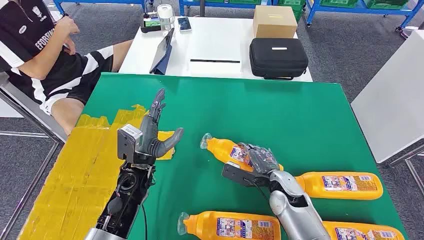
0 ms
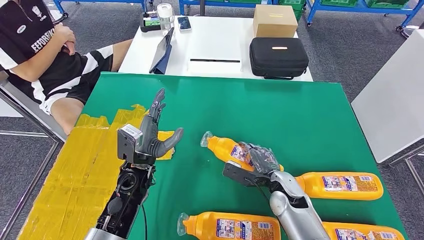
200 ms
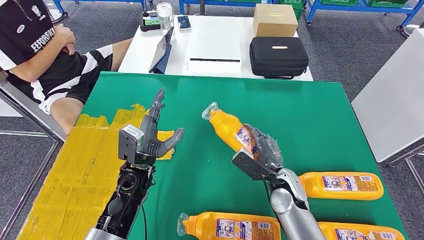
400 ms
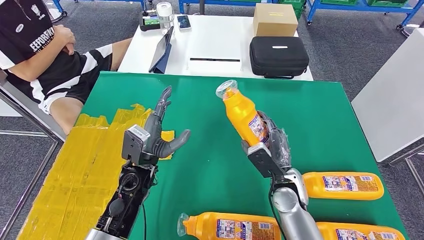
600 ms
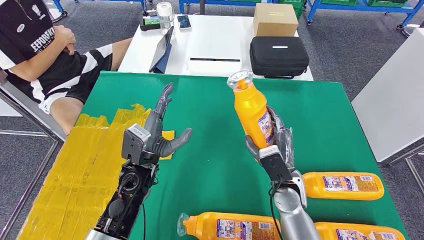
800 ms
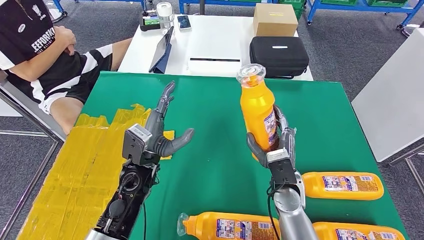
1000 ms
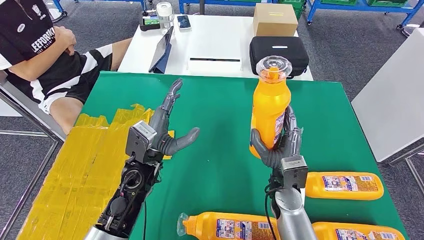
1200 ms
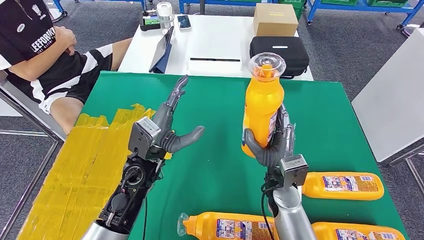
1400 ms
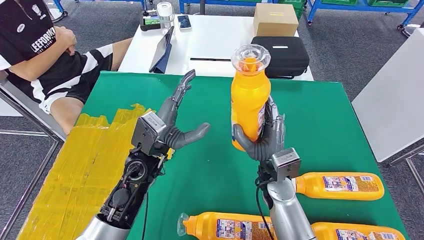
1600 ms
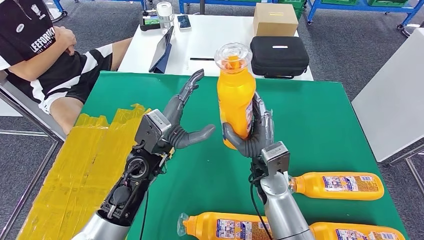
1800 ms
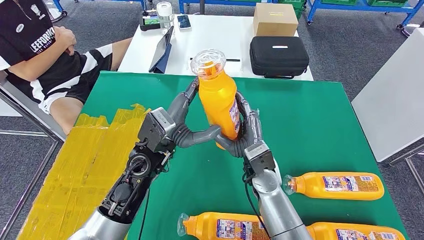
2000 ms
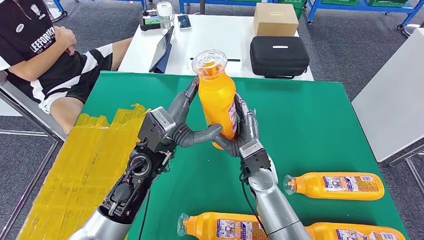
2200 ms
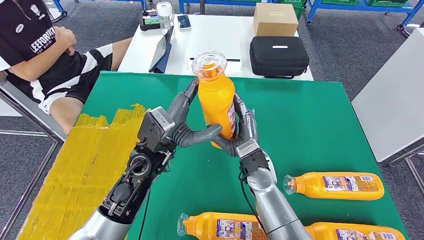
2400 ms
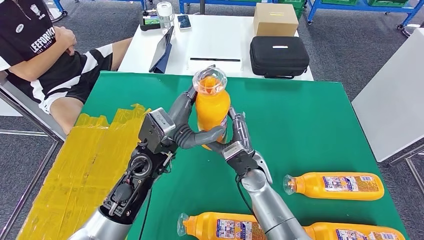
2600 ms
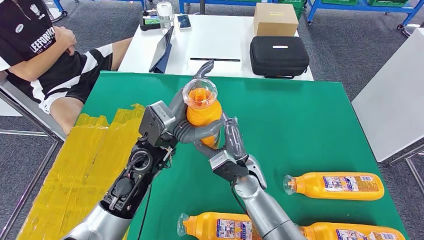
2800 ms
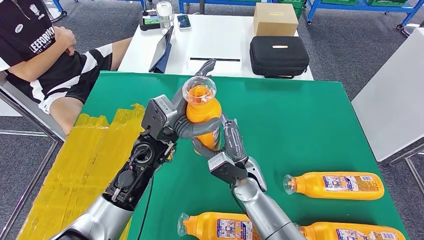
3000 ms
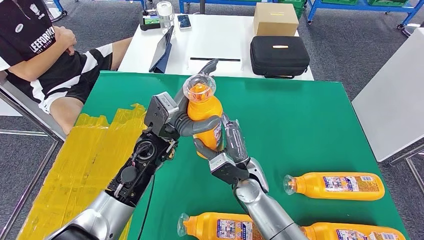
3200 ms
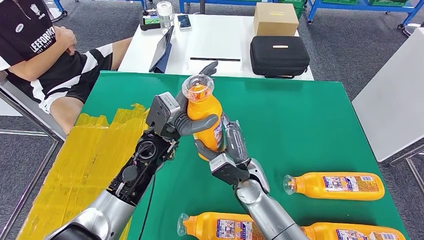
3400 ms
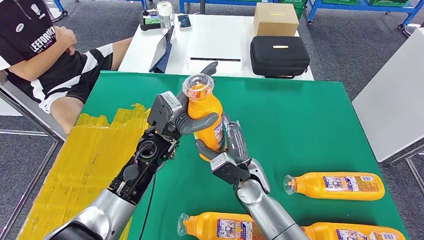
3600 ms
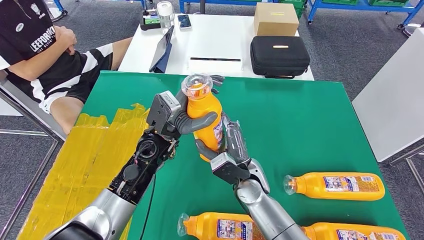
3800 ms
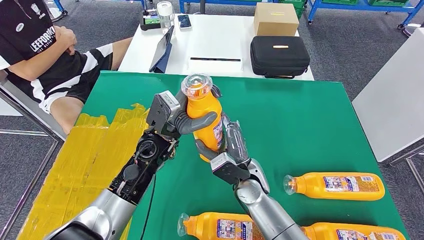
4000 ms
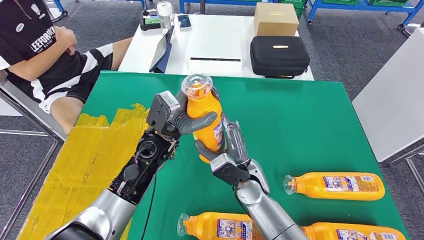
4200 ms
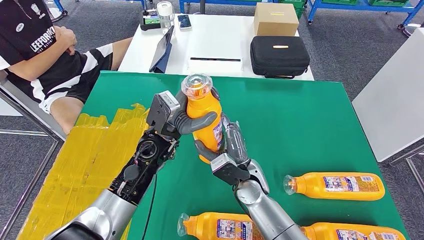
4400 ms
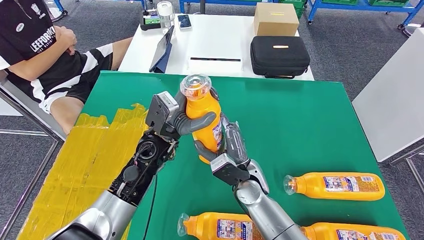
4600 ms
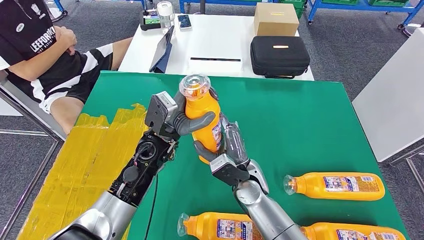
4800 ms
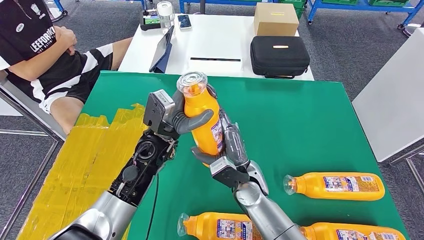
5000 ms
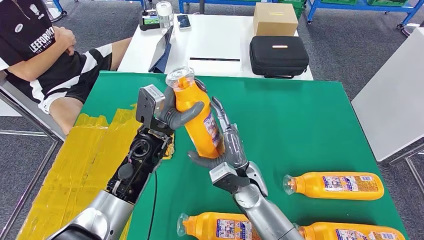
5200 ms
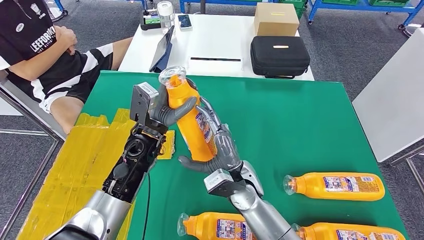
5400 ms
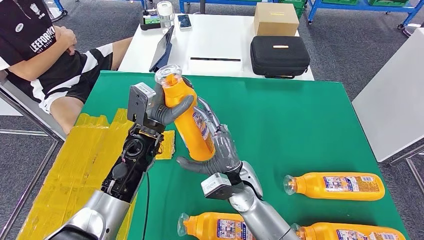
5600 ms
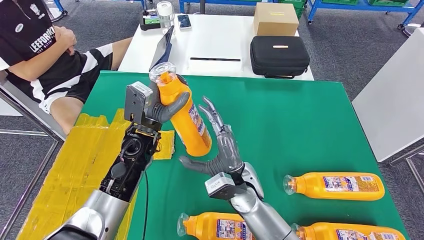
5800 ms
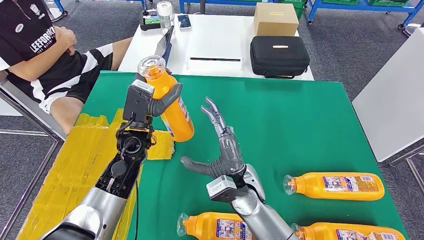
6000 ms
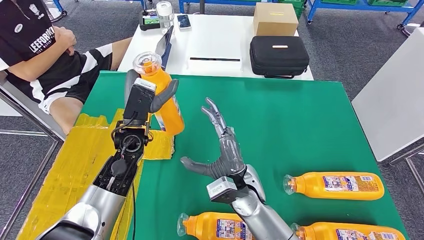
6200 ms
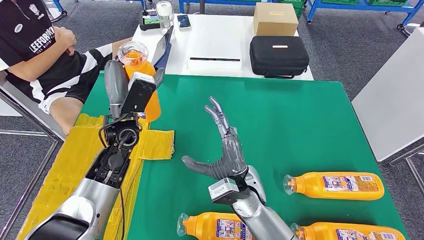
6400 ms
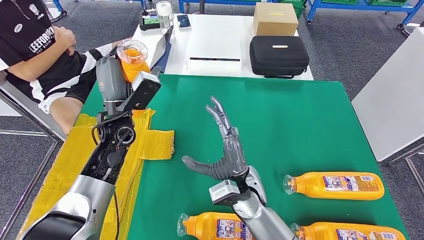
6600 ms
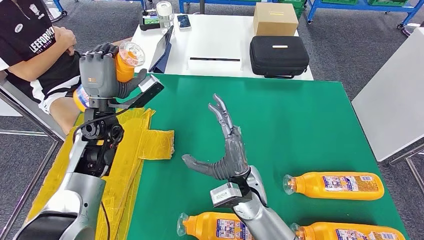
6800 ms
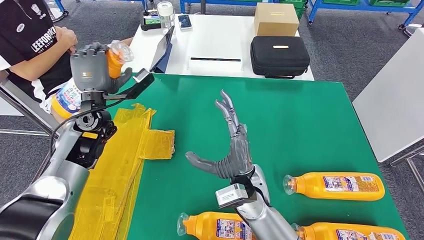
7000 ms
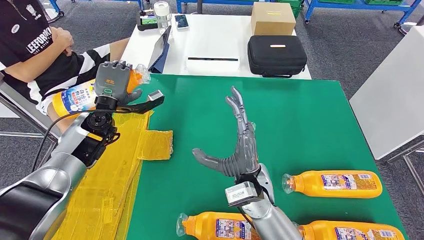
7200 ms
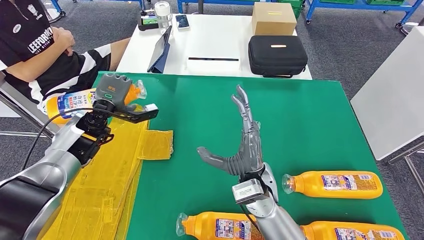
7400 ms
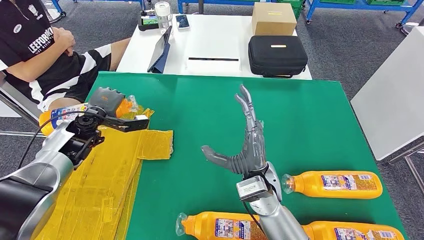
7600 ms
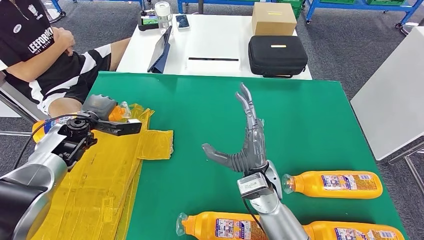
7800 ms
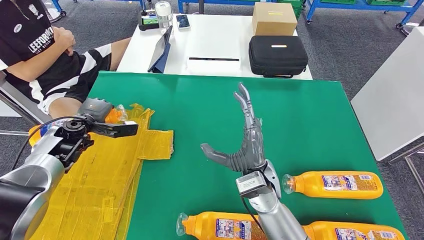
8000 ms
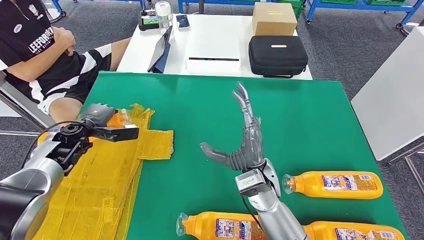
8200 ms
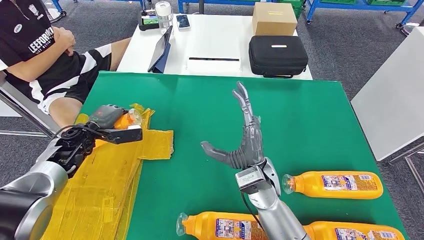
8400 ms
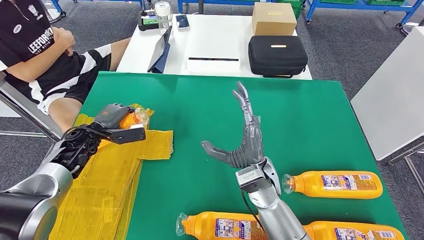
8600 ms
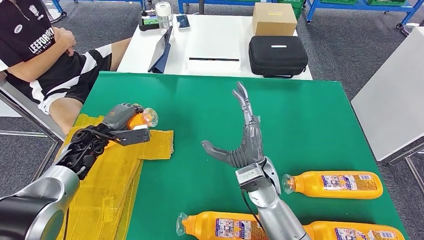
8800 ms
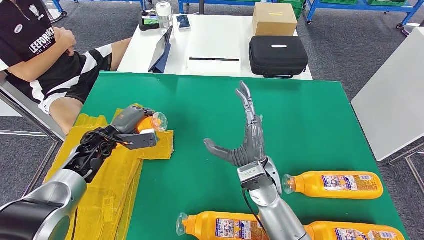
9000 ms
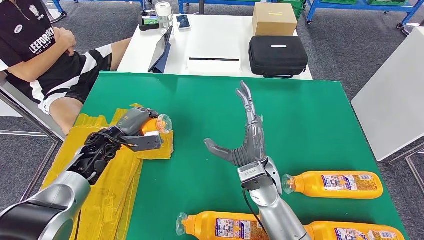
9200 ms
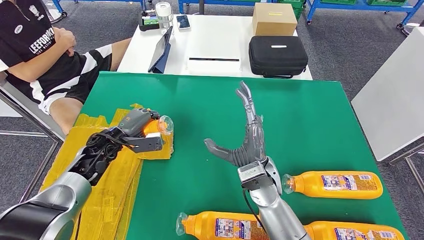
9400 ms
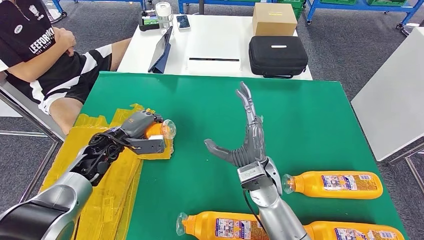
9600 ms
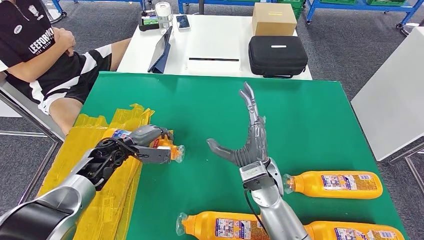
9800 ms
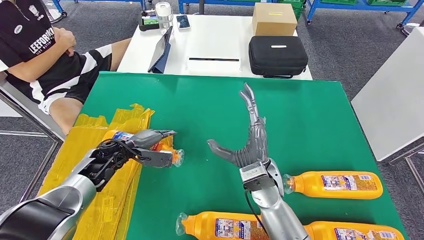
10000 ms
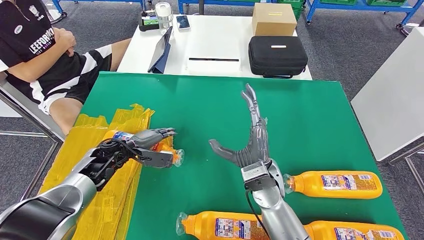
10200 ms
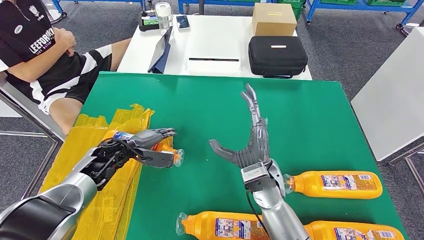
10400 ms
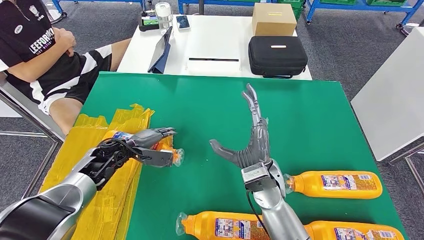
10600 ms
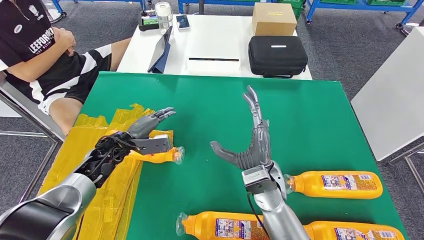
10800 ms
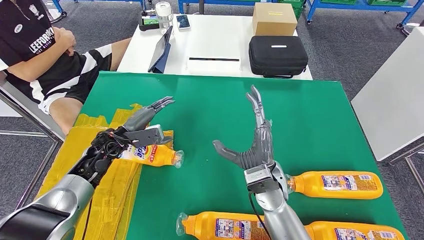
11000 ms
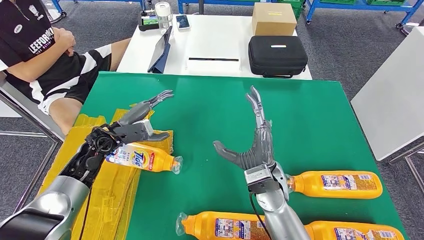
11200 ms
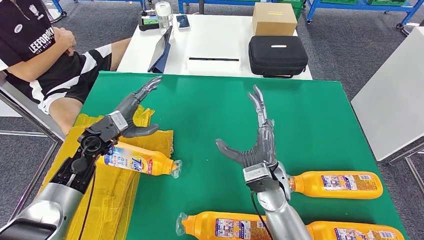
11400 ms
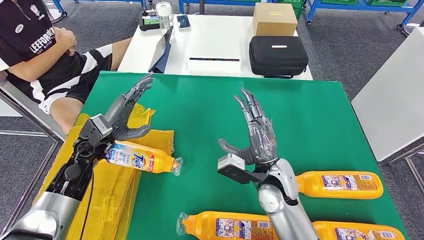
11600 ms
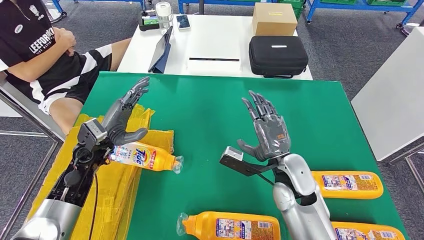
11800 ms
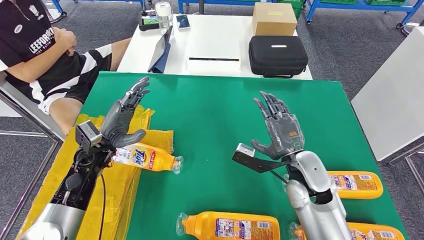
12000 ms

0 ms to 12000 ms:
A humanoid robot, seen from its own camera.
Step, 0 ms to 4400 ms: Take the fast-moving consumer goods bottle from the table.
Step, 4600 ms to 10200 ms: Flip the fast-moving consumer goods bottle to the front side.
1600 ms to 3000 ms: The right hand is displaced to the left by roughly 5 cm.
3000 ms to 4400 ms: The hands move only a little.
4400 ms to 6000 ms: The left hand travels to the left by roughly 5 cm.
7600 ms to 9000 ms: The left hand shifts by some 5 cm.
10400 ms to 12000 ms: The right hand heads to the right, covering approximately 10 cm; the left hand moves upward, roughly 5 cm.

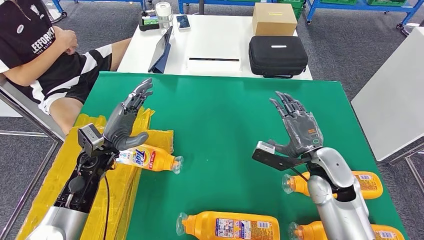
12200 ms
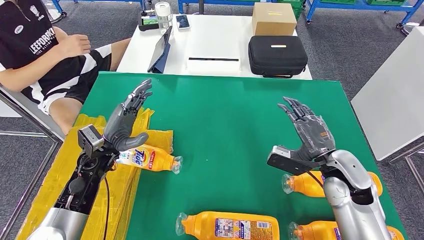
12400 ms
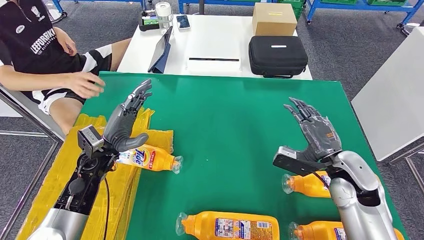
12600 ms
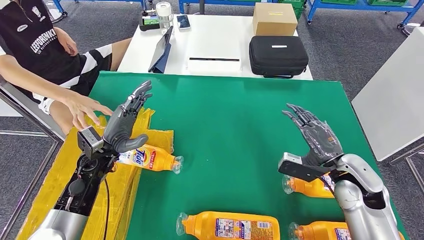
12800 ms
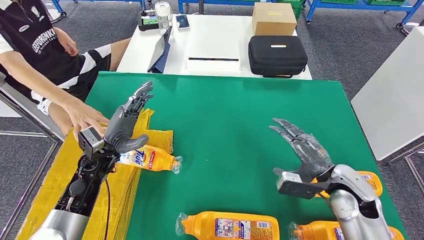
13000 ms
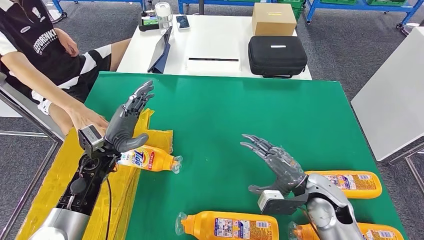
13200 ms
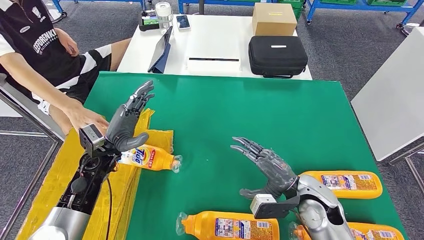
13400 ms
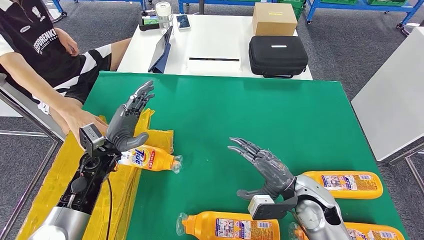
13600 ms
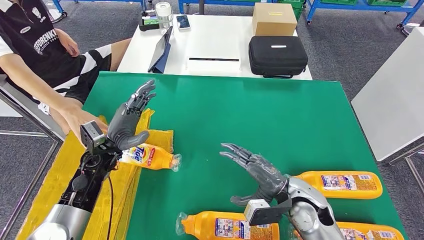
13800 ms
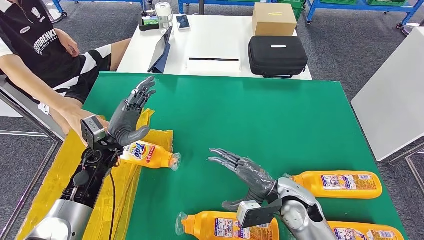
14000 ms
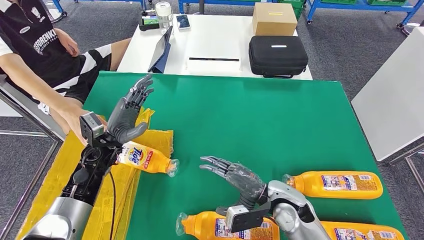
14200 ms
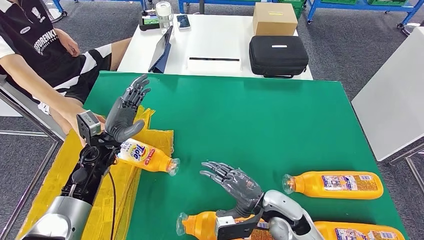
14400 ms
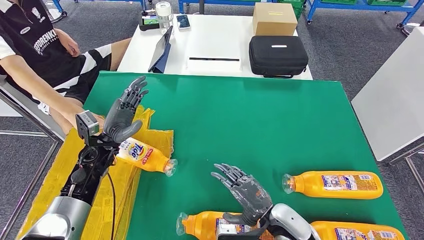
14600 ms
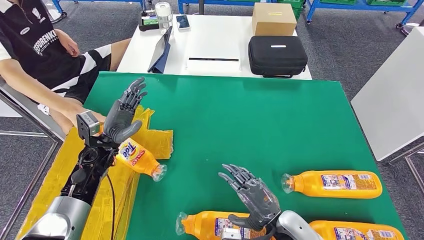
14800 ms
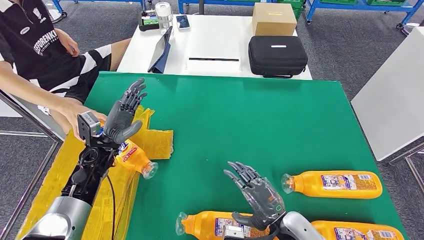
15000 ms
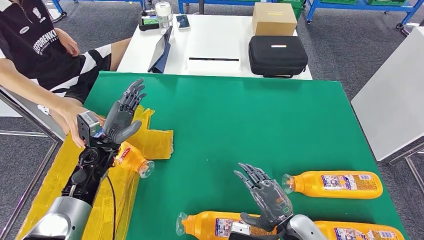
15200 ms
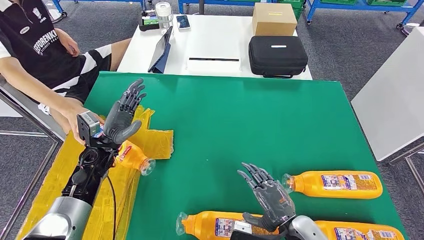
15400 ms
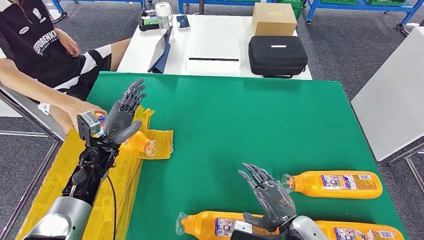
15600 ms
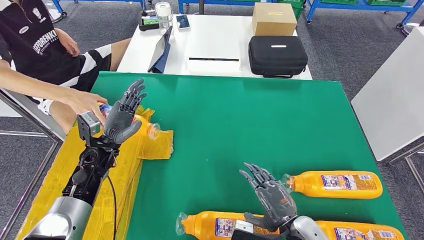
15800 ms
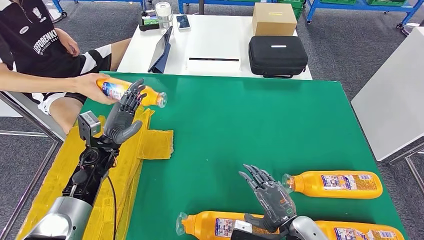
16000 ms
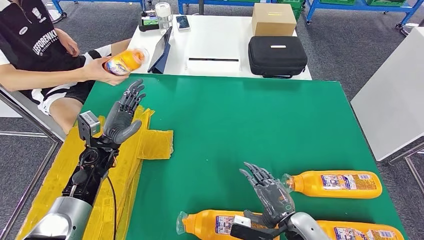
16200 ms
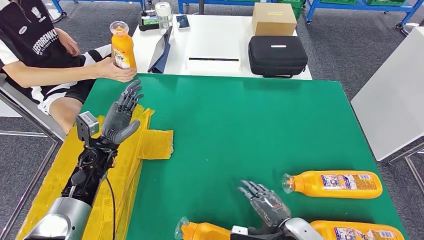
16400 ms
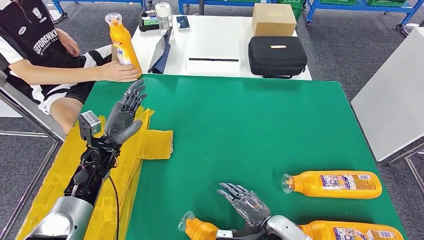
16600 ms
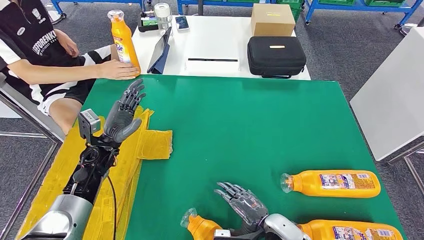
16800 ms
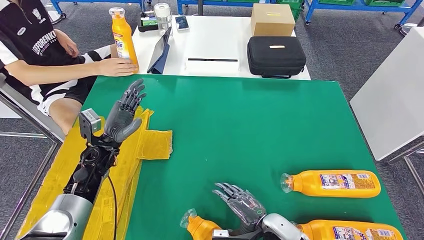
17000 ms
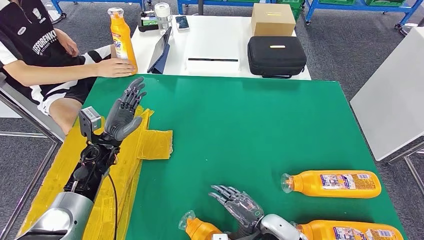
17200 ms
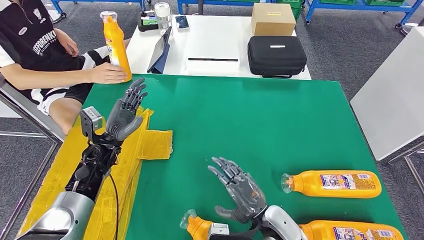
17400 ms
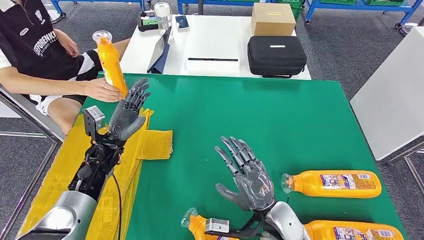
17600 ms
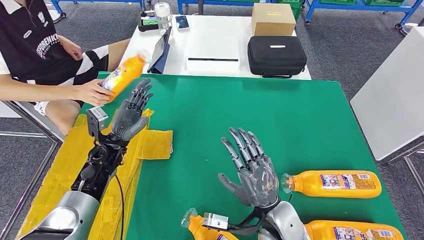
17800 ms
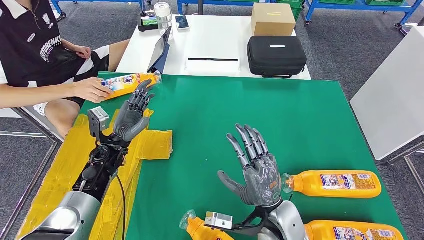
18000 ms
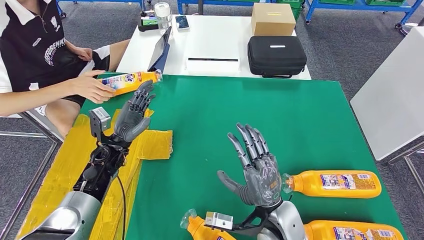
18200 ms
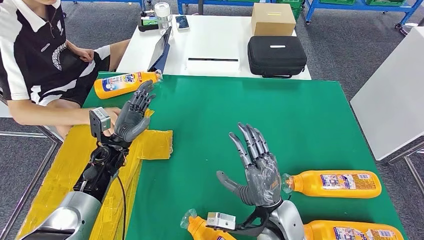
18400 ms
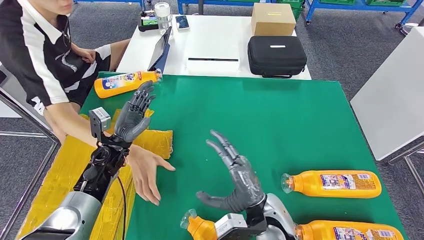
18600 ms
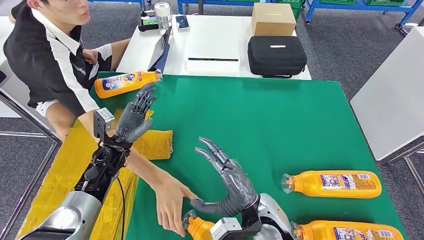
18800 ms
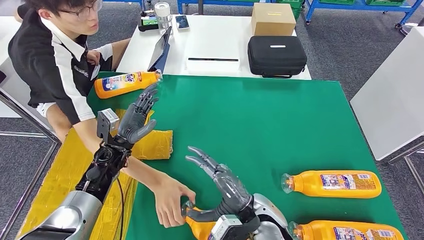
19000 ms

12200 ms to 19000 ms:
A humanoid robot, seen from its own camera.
12200 ms to 13600 ms: The right hand goes to the right and returns, roughly 5 cm each way.
13600 ms to 15000 ms: The right hand shifts about 10 cm backward.
15000 ms to 16200 ms: The hands make only small movements.
16200 ms to 17600 ms: The right hand shifts approximately 5 cm to the left.
